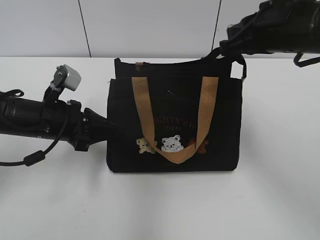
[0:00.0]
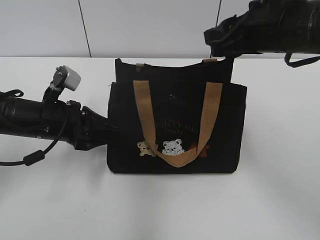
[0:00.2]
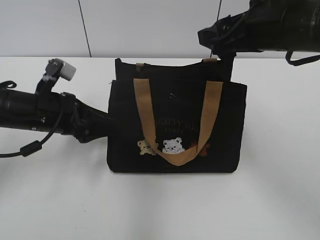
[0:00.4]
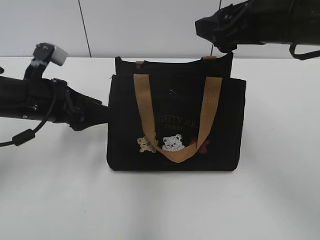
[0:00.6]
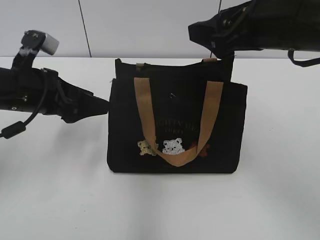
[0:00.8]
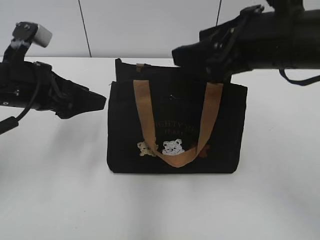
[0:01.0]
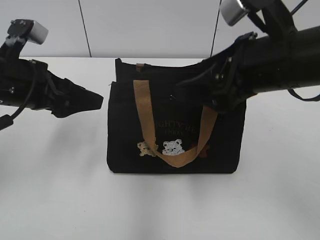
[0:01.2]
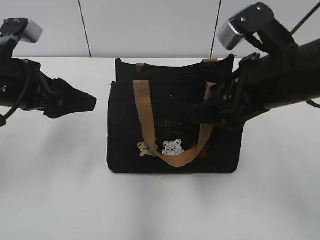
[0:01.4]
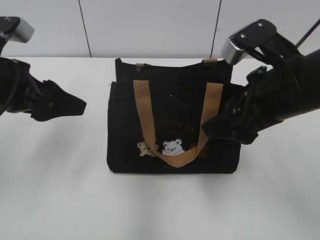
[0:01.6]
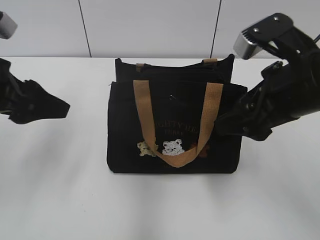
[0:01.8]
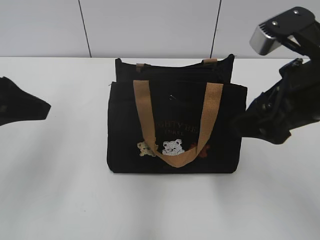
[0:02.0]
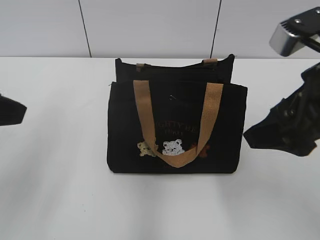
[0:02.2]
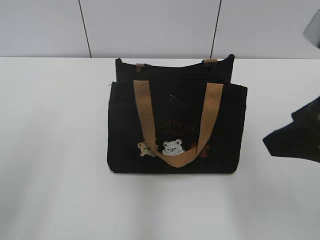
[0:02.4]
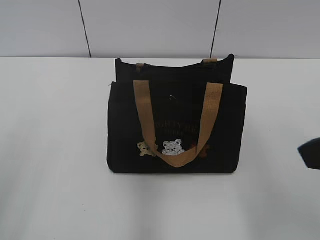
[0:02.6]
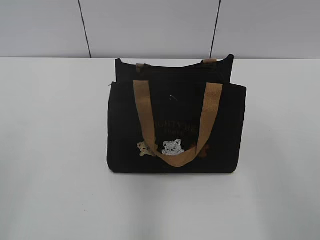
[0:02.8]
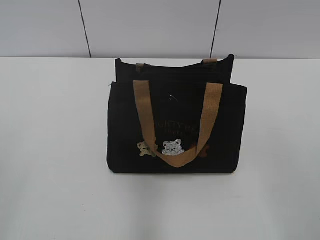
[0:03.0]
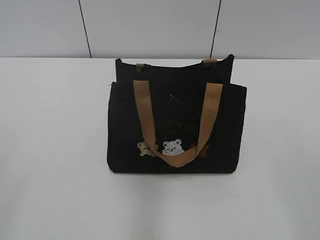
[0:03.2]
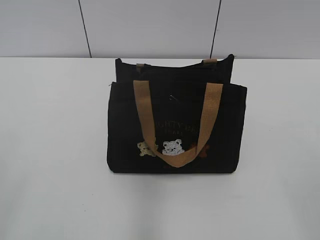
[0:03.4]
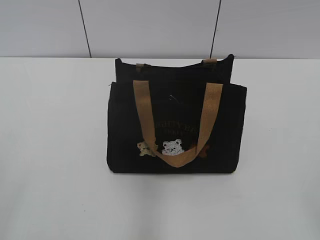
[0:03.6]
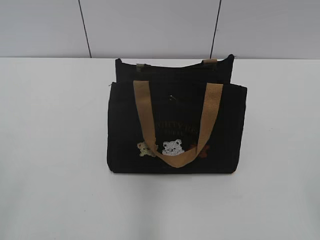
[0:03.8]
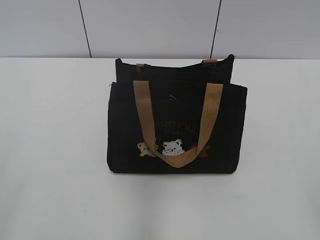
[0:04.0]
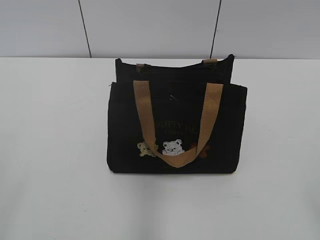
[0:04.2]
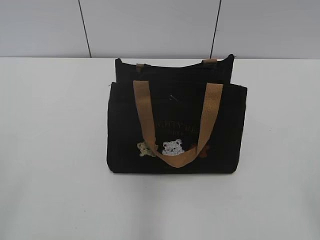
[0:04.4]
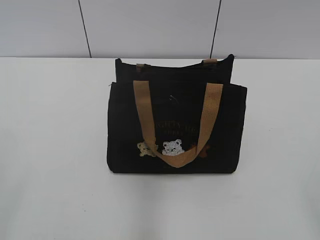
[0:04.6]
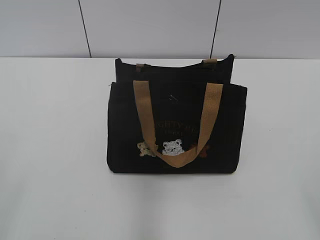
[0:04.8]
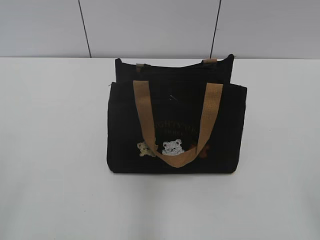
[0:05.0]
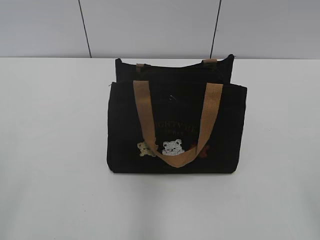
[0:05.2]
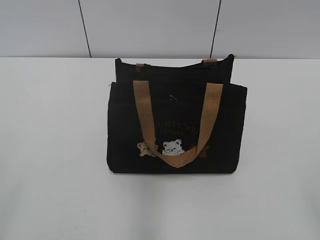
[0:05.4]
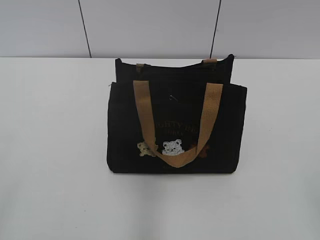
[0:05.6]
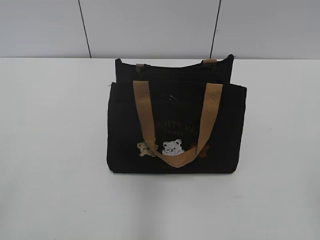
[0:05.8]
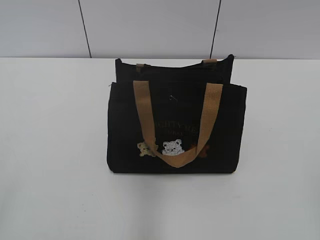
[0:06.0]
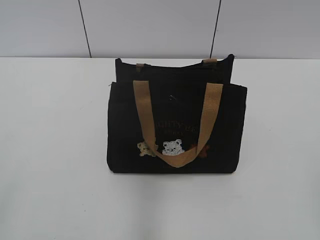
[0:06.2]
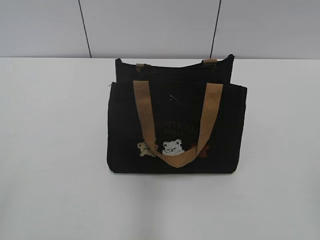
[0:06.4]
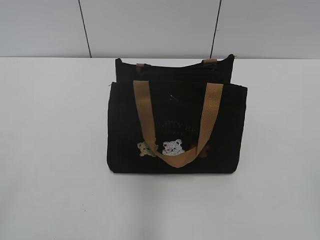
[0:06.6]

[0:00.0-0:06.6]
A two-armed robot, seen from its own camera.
Step, 0:00.2 to 0:01.0: Hold the bag with your left hand.
0:00.0 to 0:01.6: The right gripper moves backward, approximately 5 cm, and opens its fingers, while the left gripper is displaced upward by about 10 cm, and opens its fingers.
0:01.6 to 0:03.2: The right gripper heads backward, to the right and upward, covering roughly 25 cm. The left gripper travels backward by roughly 25 cm.

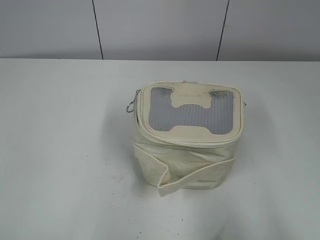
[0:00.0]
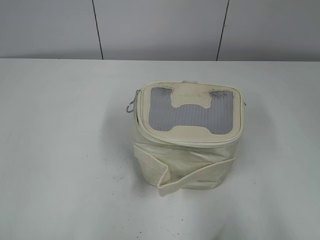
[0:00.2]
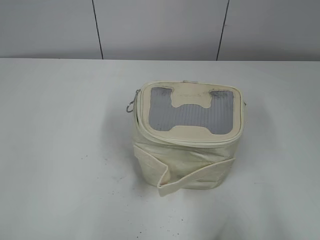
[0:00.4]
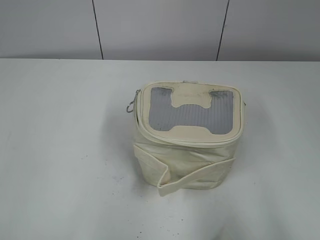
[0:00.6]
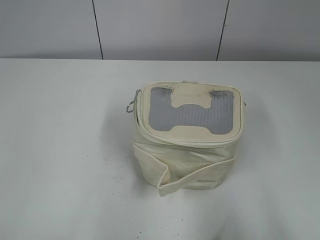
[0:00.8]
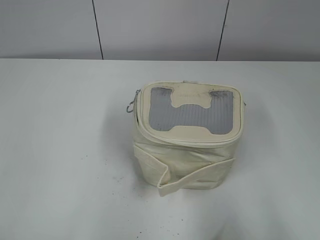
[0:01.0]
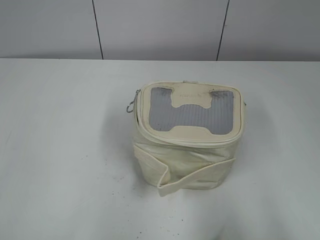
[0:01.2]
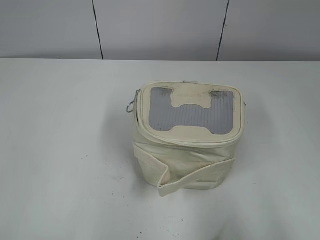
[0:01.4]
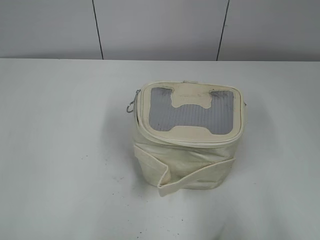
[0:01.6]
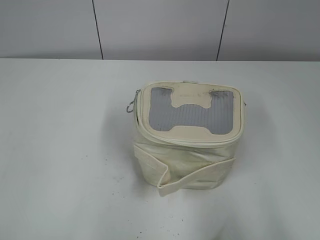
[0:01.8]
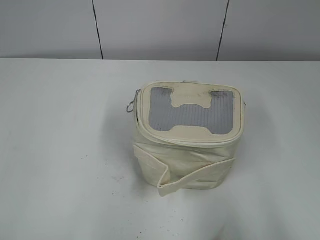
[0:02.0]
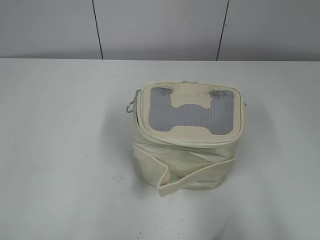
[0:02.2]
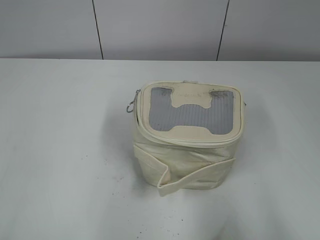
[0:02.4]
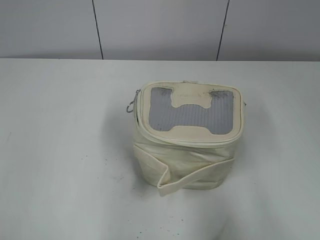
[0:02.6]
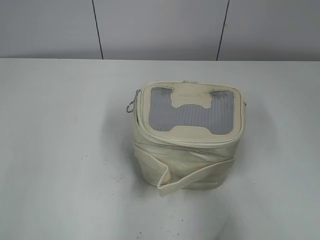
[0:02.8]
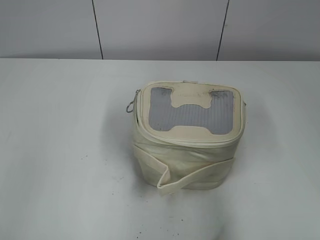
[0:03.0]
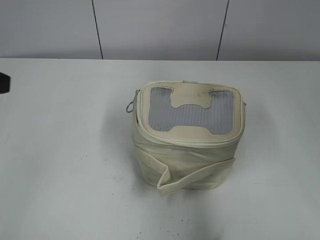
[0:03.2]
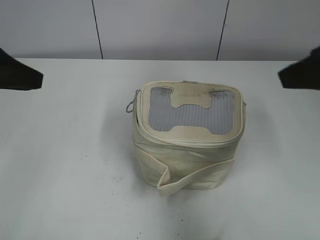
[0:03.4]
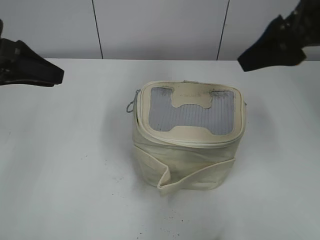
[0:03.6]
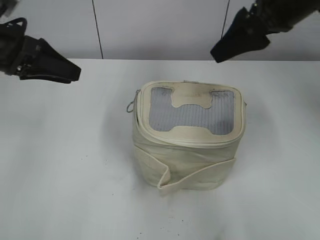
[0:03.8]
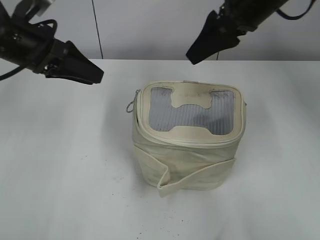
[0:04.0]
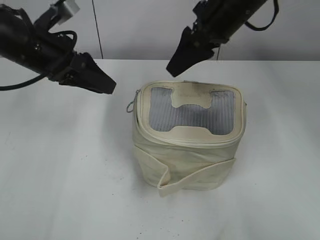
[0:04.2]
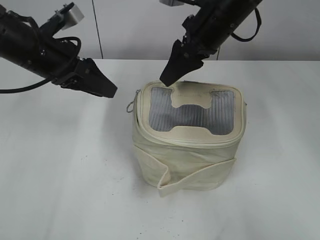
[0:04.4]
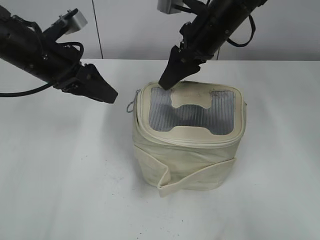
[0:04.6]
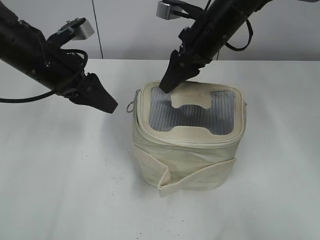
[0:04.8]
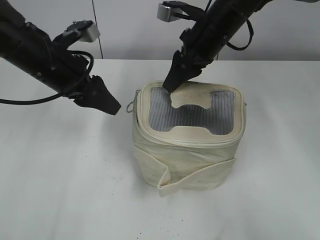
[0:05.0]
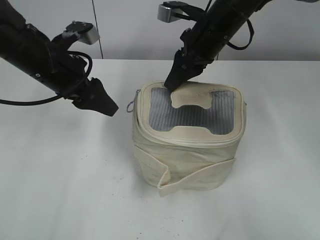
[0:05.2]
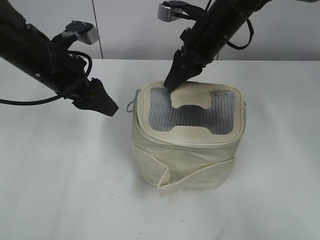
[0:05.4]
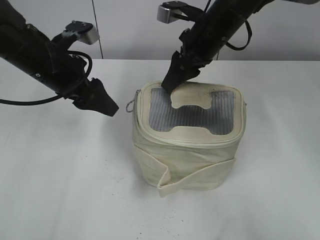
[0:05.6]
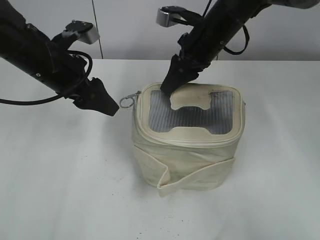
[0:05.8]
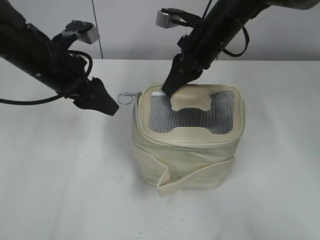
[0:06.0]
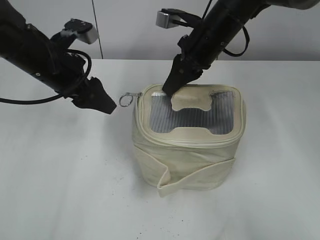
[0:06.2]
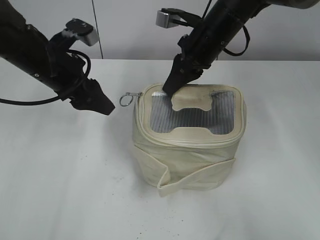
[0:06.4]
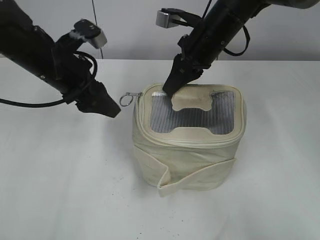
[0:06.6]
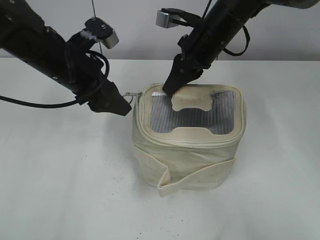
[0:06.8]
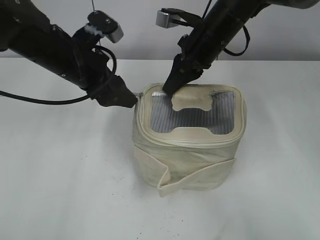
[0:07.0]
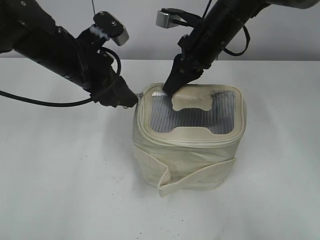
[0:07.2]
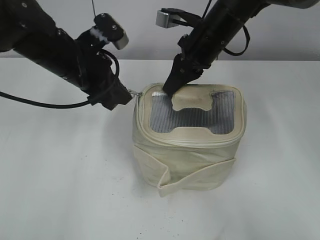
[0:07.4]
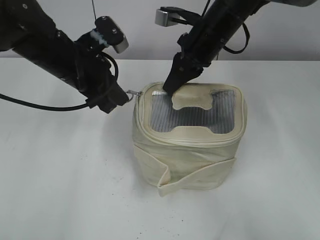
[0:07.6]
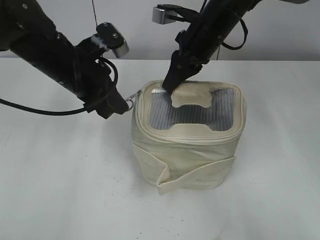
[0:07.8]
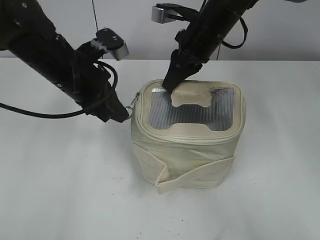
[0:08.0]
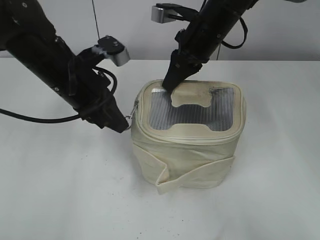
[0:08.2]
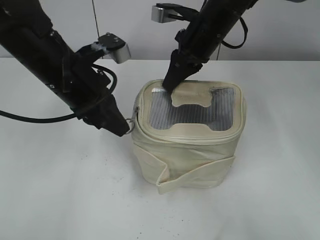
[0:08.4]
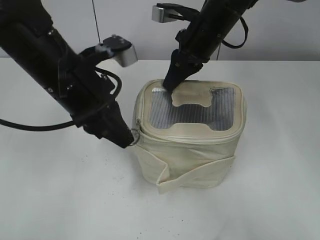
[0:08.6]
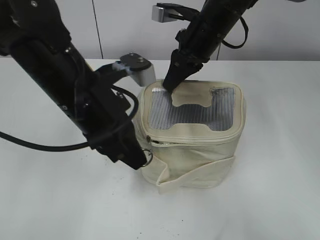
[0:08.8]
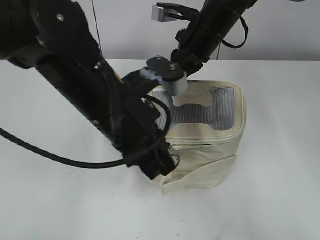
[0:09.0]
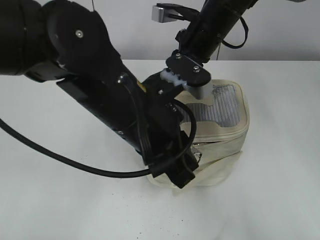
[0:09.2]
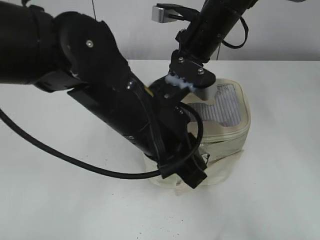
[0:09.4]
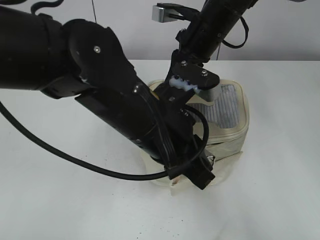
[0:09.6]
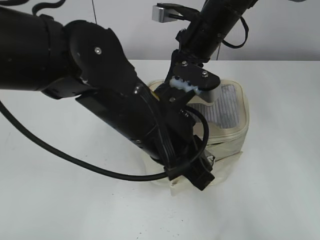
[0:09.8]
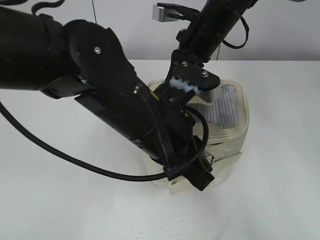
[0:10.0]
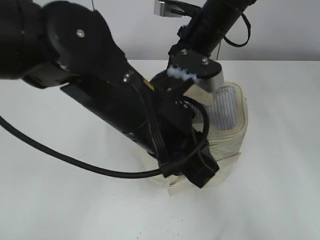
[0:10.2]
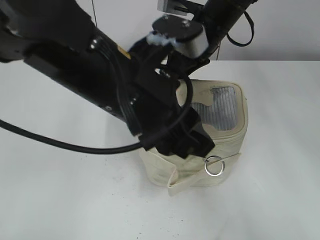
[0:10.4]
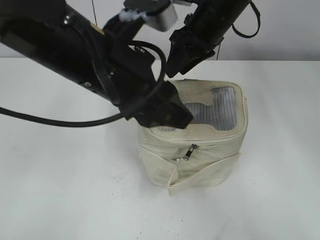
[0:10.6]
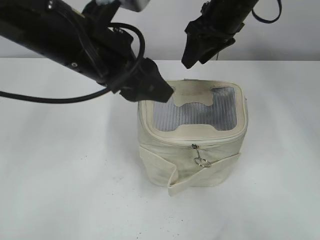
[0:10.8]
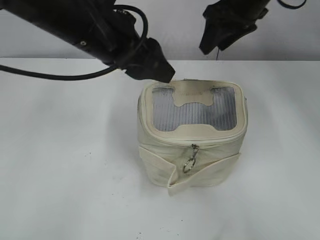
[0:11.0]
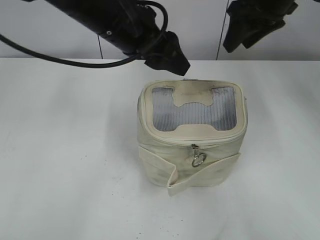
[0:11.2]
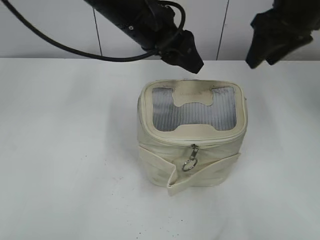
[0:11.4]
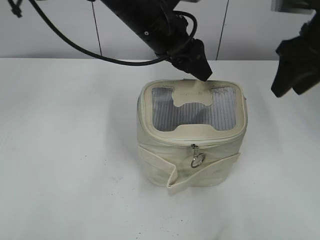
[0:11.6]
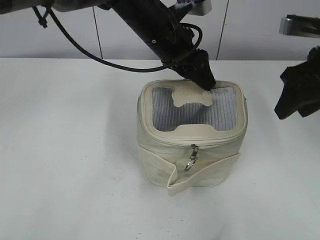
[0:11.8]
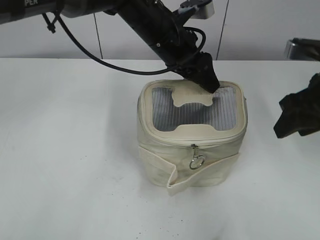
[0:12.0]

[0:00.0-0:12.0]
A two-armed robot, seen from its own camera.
Step, 0:00.0 to 0:10.0: Zip up the bag with your left hand.
0:01.6 to 0:03.0: The right gripper moves forward, approximately 10 cm, while the left gripper is displaced forward by some 15 cm.
0:03.0 to 0:04.4: The left gripper heads forward, to the right and downward, covering approximately 25 cm. The right gripper is displaced forward and to the left by roughly 35 cm.
0:04.4 to 0:06.0: The right gripper closes.
0:06.0 to 0:07.6: The left gripper closes its fingers.
0:07.6 to 0:09.0: The left gripper shifts some 15 cm backward and to the right.
0:09.0 to 0:10.4: The left gripper opens its fingers, while the right gripper opens its fingers.
0:10.4 to 0:12.0: The right gripper heads to the right and backward, covering approximately 20 cm. The left gripper travels forward by approximately 20 cm.

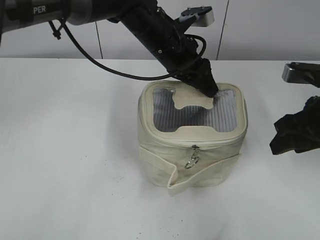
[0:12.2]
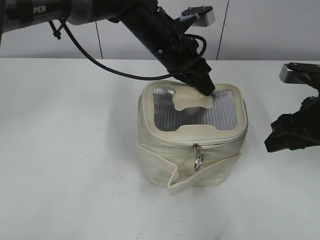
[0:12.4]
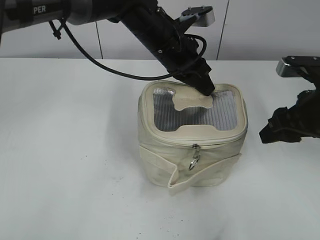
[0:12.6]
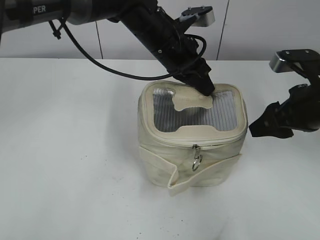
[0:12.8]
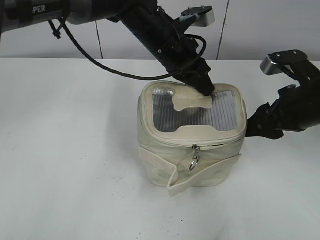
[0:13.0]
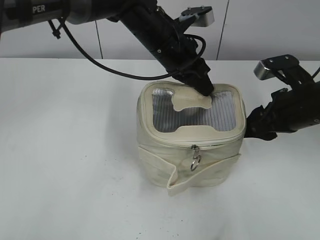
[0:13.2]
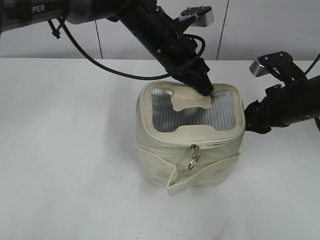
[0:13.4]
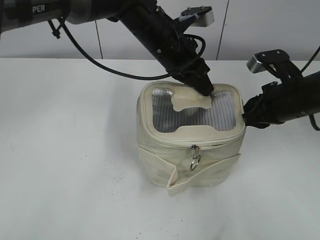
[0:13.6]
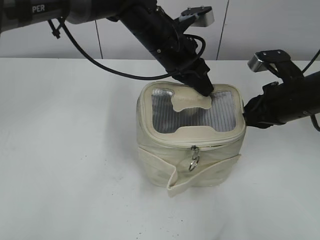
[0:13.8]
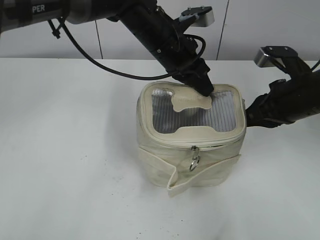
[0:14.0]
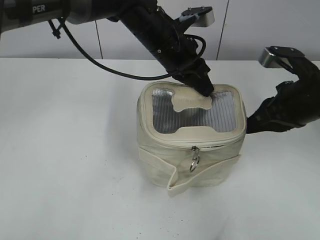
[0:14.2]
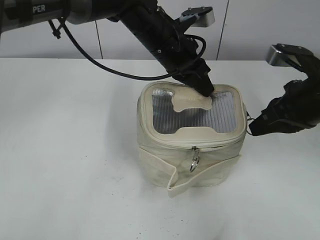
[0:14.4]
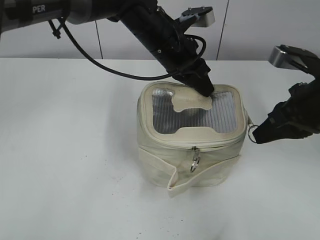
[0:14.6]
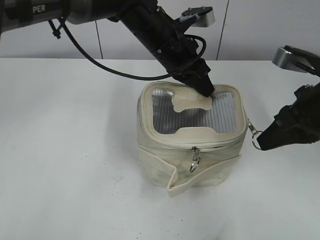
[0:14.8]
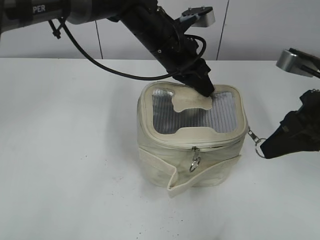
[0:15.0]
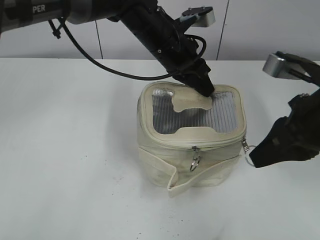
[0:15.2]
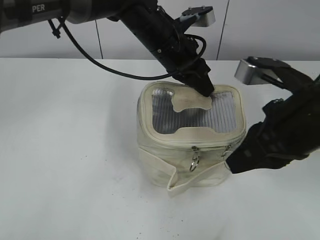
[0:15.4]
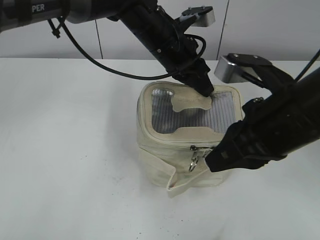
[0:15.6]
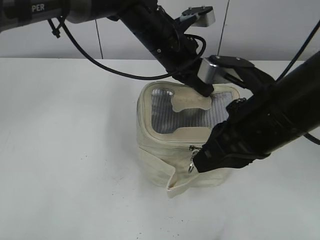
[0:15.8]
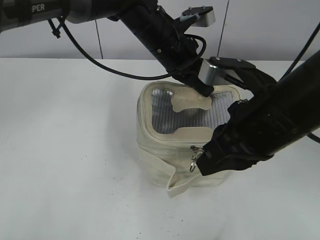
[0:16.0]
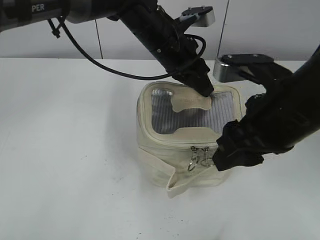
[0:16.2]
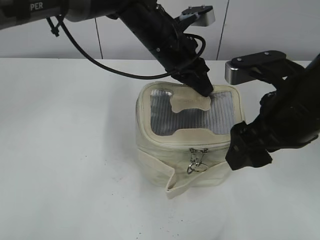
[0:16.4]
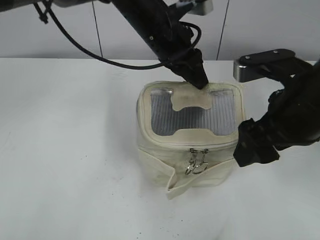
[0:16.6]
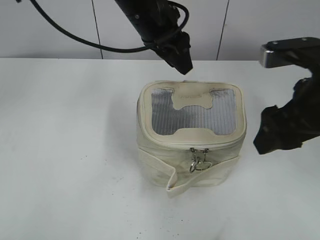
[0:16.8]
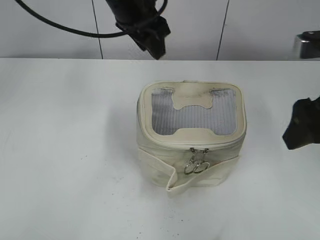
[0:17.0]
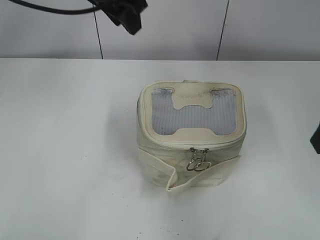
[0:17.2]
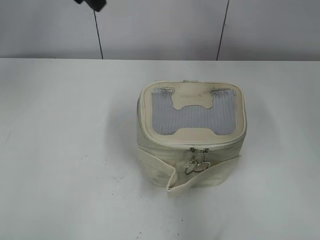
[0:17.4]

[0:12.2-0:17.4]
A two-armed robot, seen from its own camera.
Step, 0:12.2 to 0:16.0: Zip up the bag with your right hand.
Step, 0:16.2 to 0:16.6: Hold the bag with your left hand.
0:12.2 to 0:14.0: The left gripper closes its fingers. The right gripper closes up.
0:14.0 to 0:15.6: The right gripper heads backward, to the left and upward, covering roughly 15 cm.
0:15.6 to 0:17.4: The right gripper heads to the right and upward, covering some 10 cm, and opens, while the left gripper is displaced upward and to the left by about 20 cm, and opens up.
